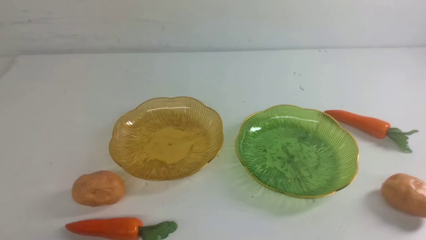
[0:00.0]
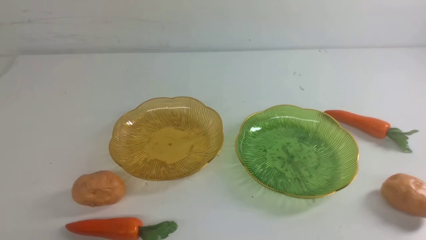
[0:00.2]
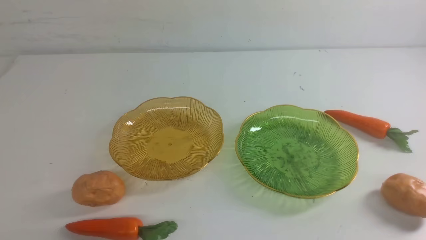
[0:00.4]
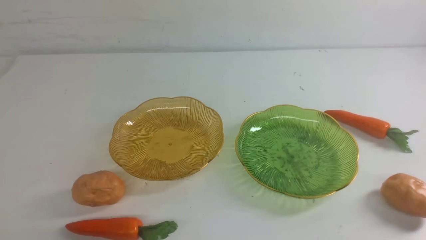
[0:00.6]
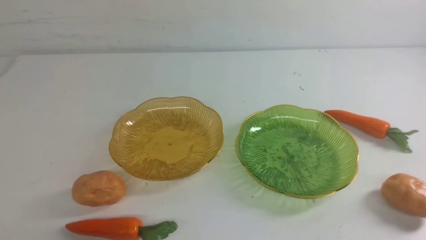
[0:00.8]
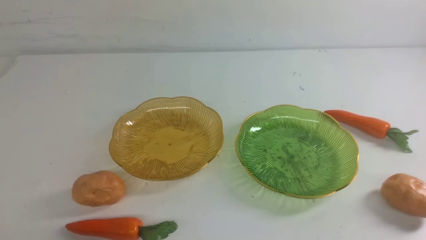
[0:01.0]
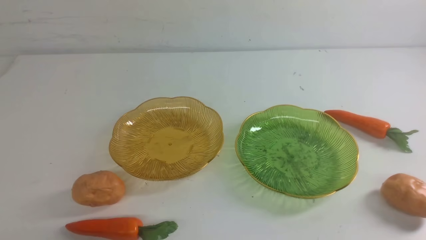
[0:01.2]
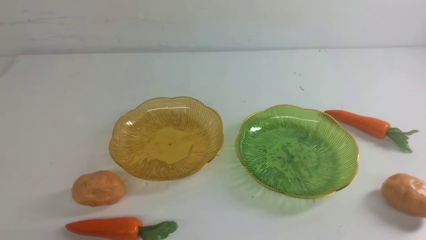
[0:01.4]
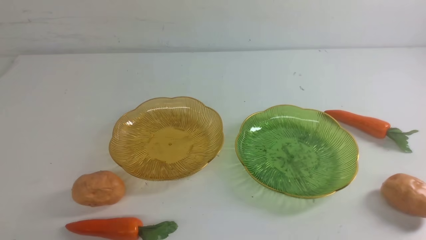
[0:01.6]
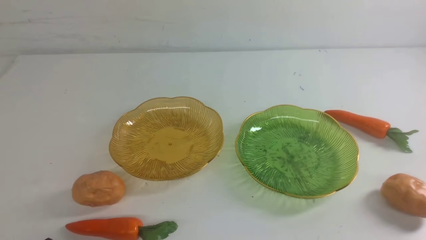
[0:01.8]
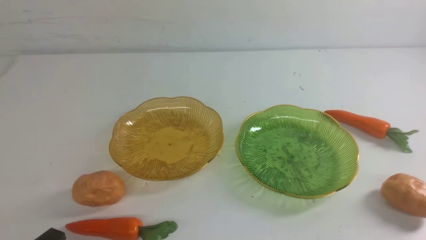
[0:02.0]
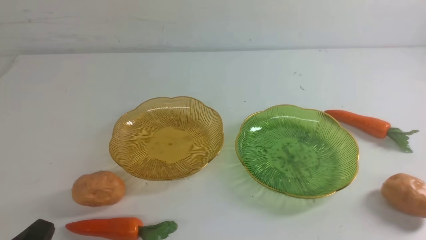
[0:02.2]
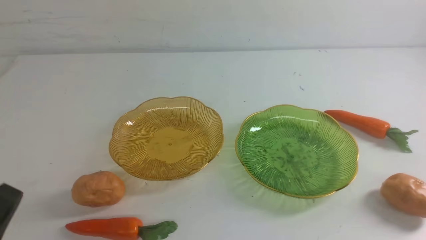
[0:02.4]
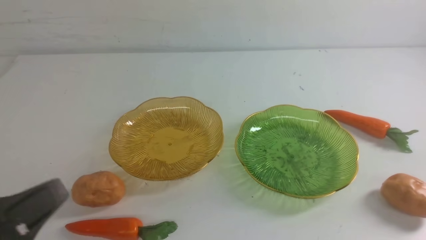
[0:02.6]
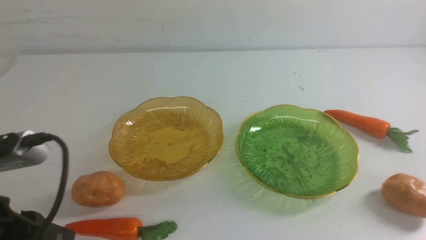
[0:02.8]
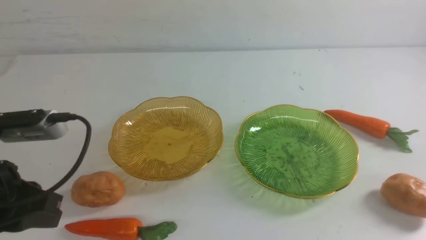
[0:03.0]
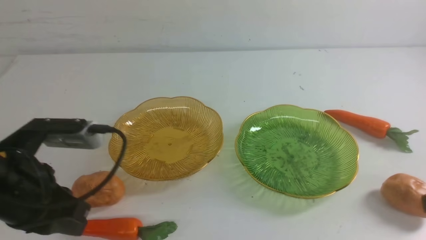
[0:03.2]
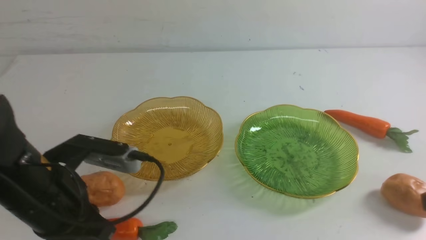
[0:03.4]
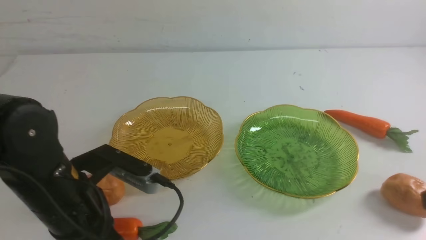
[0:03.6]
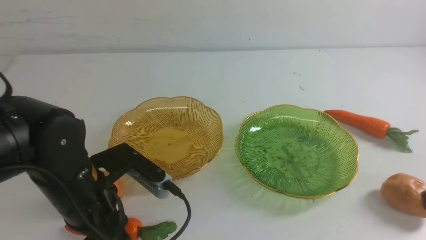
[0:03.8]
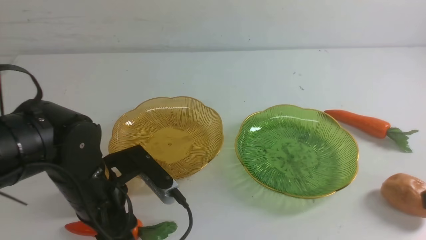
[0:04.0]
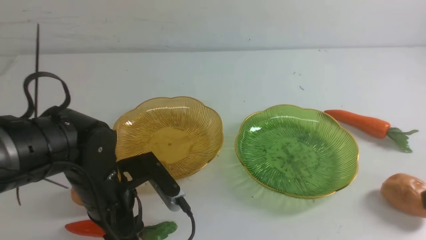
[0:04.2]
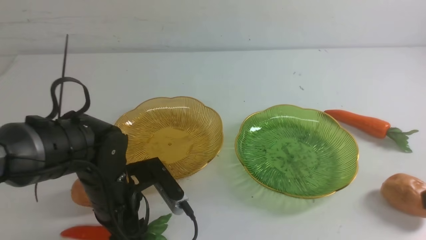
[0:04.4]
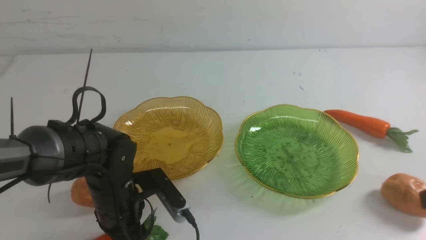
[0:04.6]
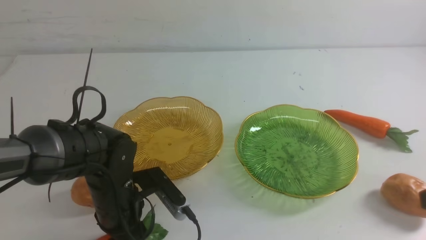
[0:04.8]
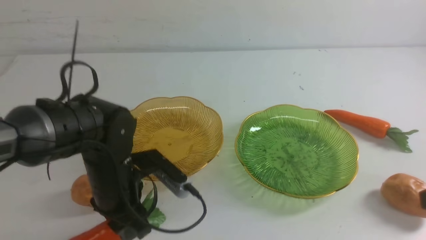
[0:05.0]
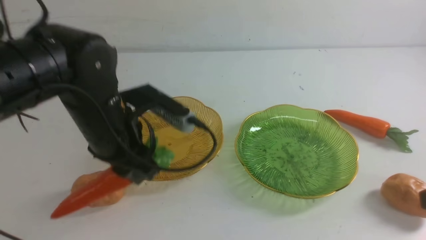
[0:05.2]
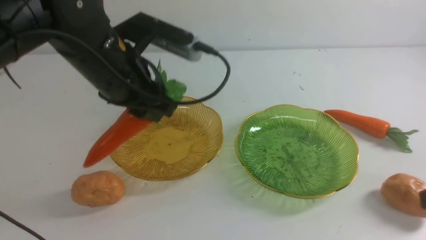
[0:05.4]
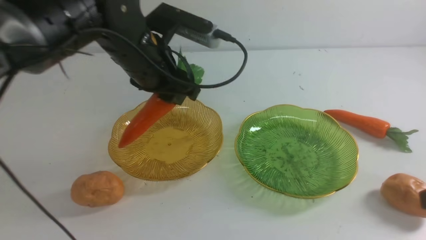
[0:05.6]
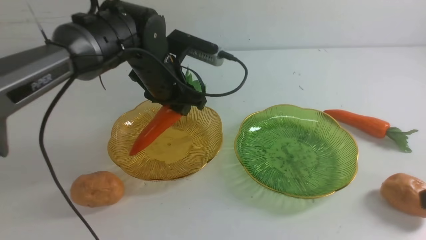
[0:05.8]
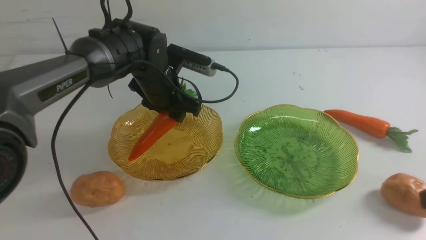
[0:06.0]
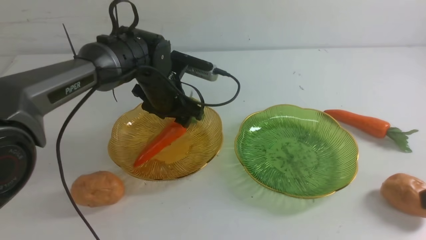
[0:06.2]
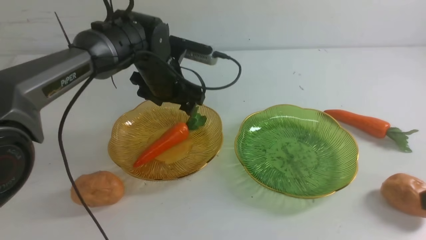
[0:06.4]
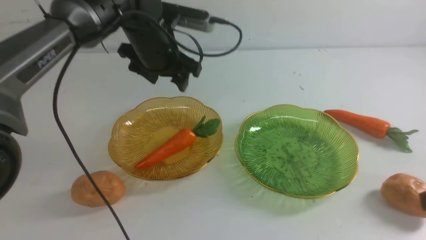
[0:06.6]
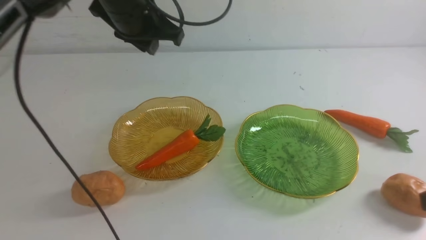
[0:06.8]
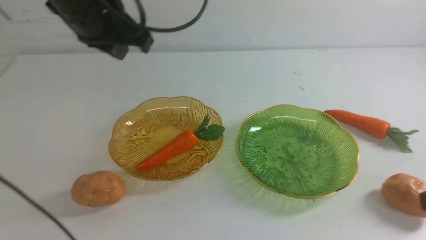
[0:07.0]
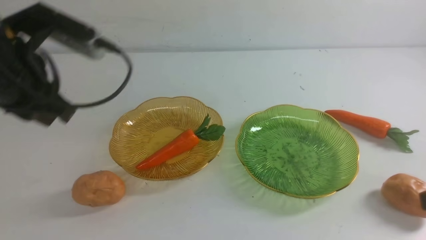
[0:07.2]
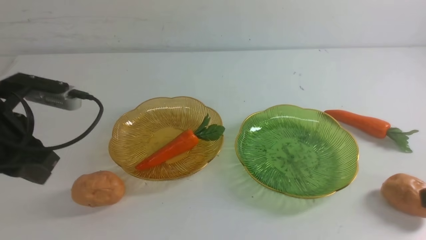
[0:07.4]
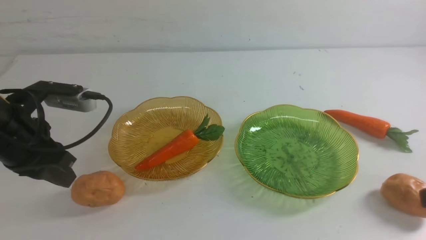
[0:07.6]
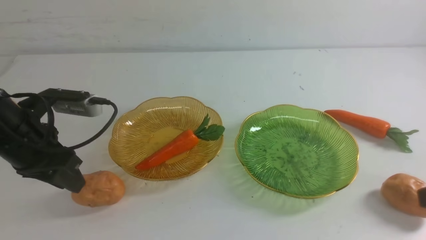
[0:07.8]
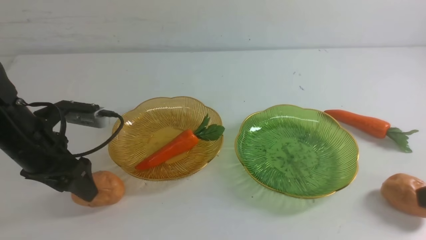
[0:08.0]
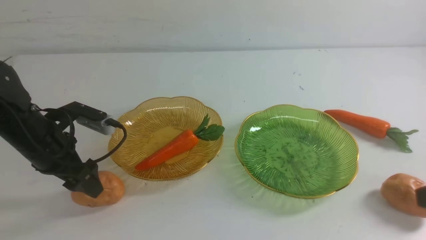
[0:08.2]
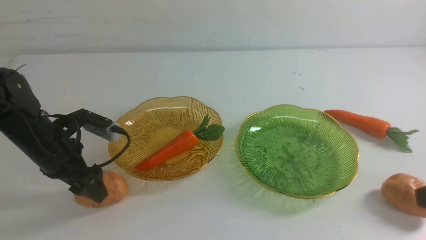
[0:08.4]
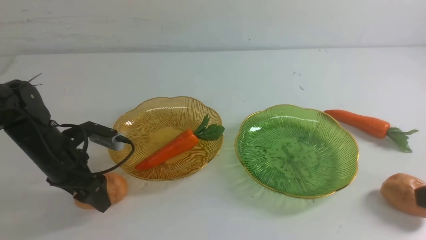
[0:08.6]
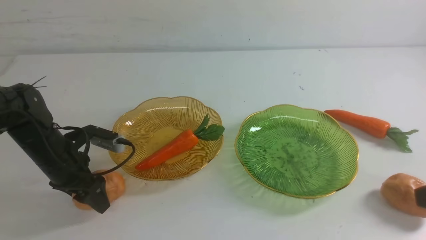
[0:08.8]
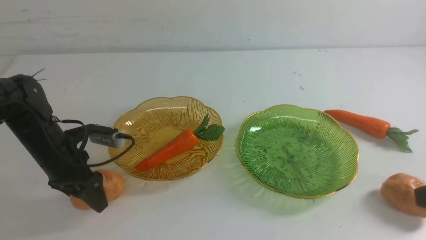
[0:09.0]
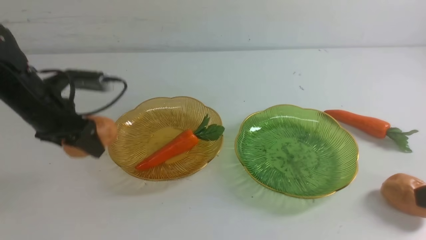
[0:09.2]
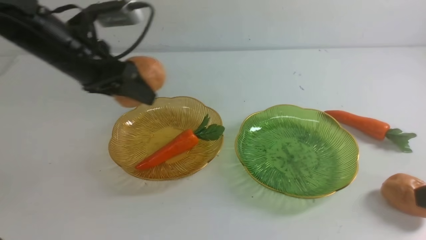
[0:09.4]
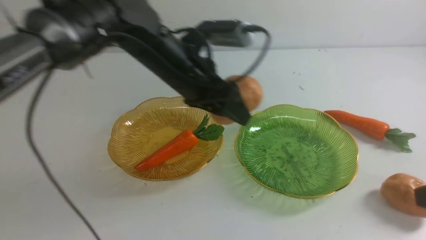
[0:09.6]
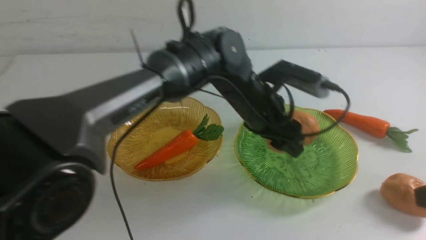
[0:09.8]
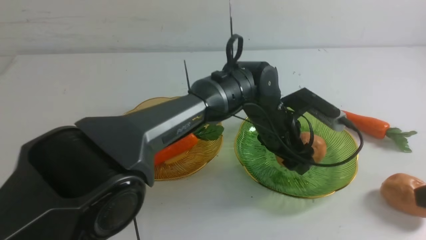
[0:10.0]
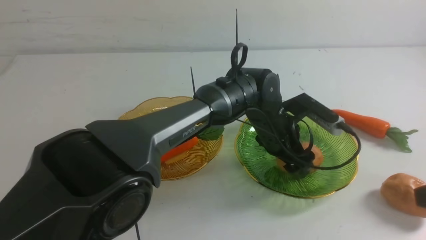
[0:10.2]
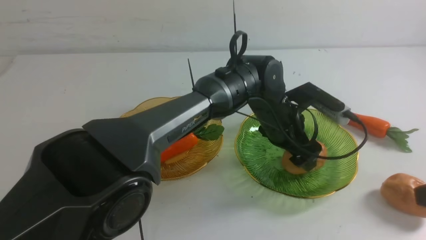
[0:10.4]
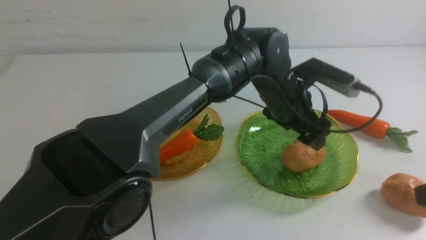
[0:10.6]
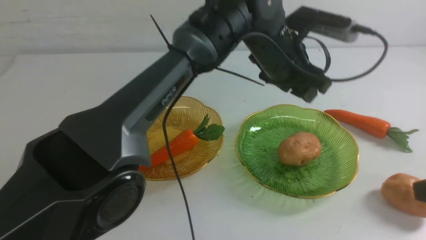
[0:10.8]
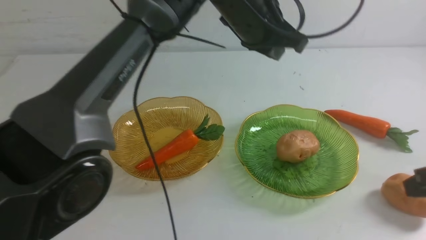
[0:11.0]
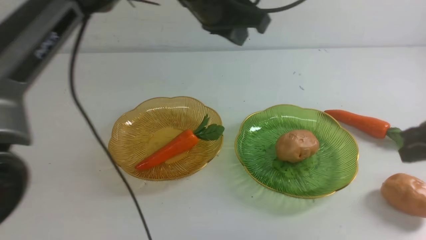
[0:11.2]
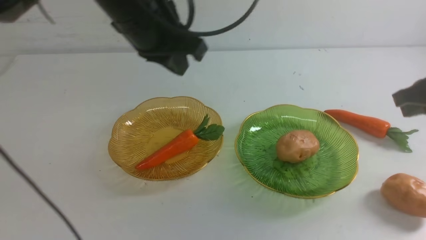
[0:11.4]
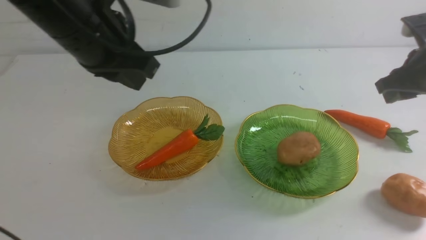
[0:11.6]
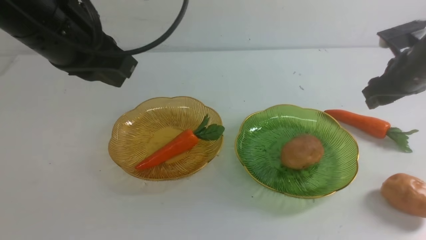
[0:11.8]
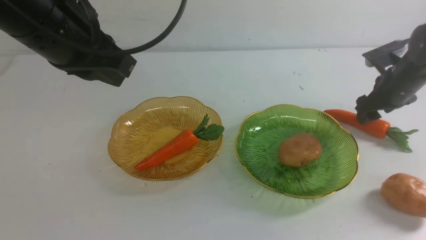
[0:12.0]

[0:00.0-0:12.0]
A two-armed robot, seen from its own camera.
Step, 0:00.0 to 0:06.4: use the left arm to grab a carrot and put it into the left plate.
Step, 0:06.6 to 0:10.6: Grab a potato with your left arm and put it on the right plate.
0:01.6 to 0:03.0: The left gripper goes approximately 15 cm upward and forward.
0:03.0 to 0:04.4: The left gripper heads downward, to the right and forward, covering roughly 15 cm, and opens.
0:04.4 to 0:06.0: The left gripper is displaced forward by about 15 cm.
0:06.0 to 0:07.6: The left gripper shifts about 20 cm to the left and backward, and closes up.
0:07.6 to 0:09.0: The left gripper is displaced forward by some 10 cm, and opens its fingers.
0:09.0 to 0:10.4: The left gripper travels to the right by about 35 cm.
0:10.4 to 0:12.0: The left gripper is displaced to the left, upward and backward by roughly 30 cm, and closes up; the right gripper heads forward and downward, covering roughly 35 cm, and opens up.

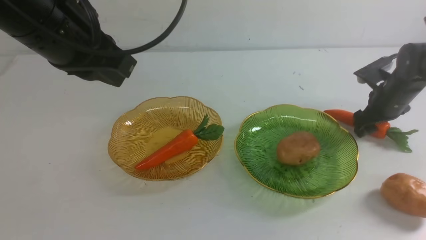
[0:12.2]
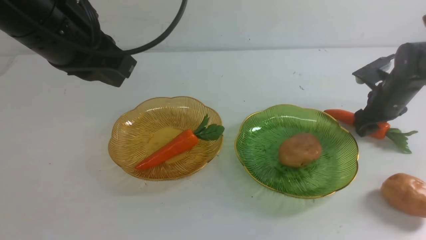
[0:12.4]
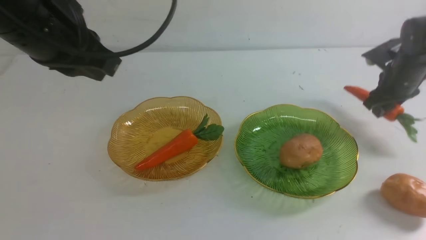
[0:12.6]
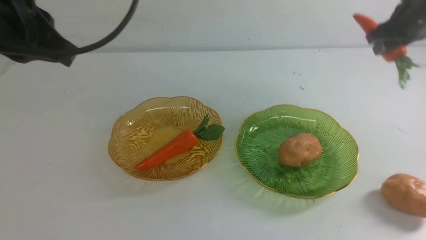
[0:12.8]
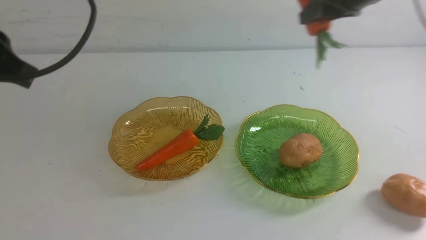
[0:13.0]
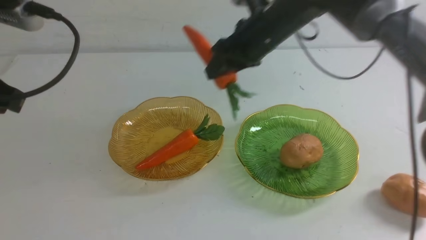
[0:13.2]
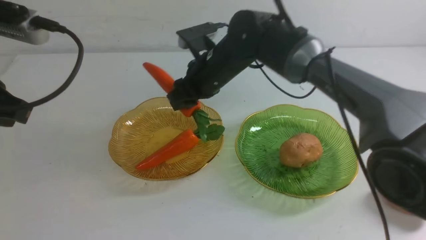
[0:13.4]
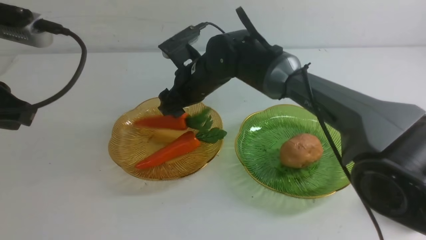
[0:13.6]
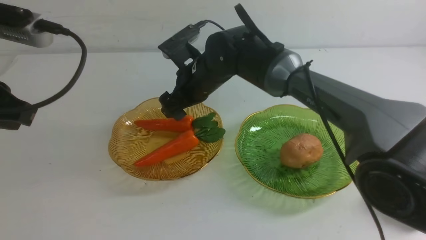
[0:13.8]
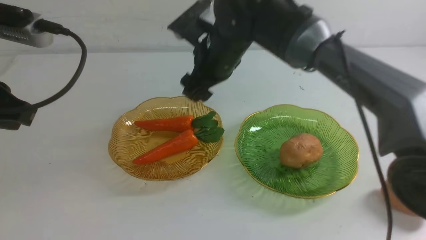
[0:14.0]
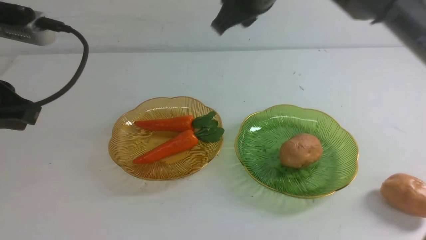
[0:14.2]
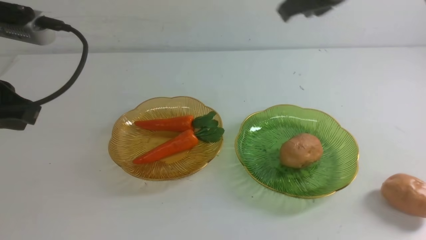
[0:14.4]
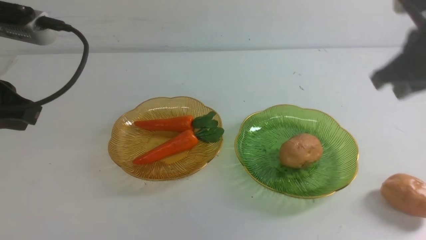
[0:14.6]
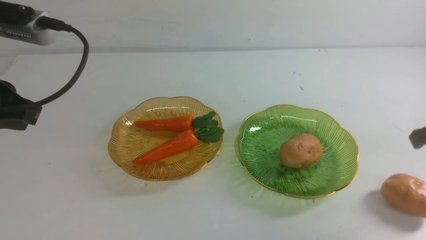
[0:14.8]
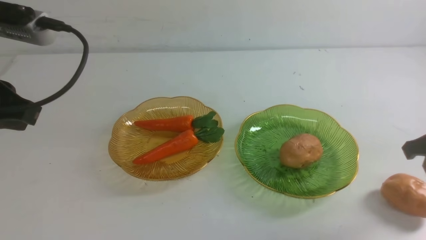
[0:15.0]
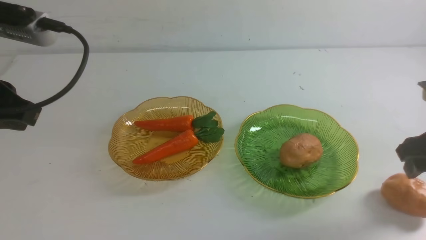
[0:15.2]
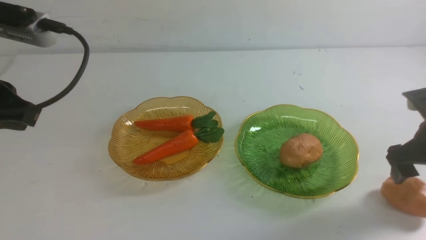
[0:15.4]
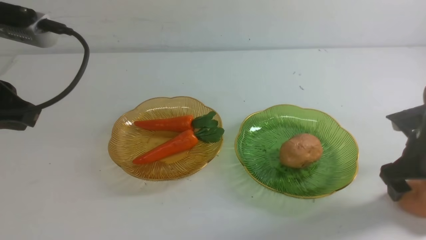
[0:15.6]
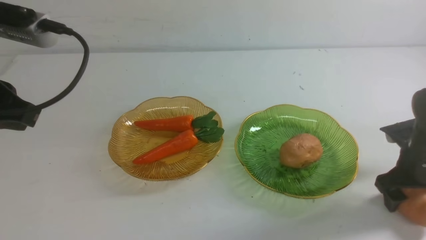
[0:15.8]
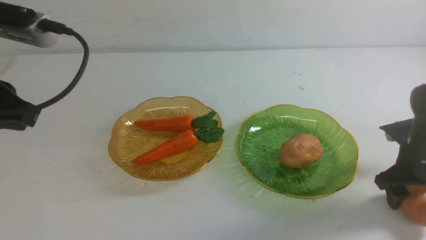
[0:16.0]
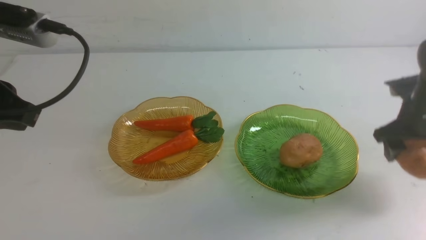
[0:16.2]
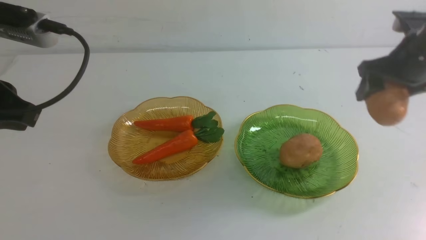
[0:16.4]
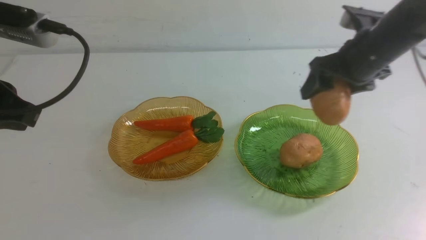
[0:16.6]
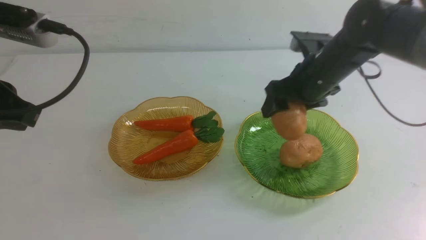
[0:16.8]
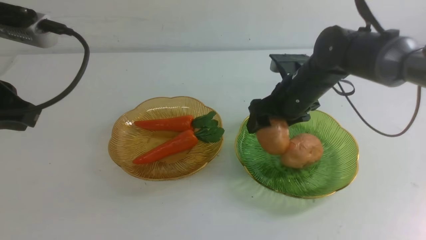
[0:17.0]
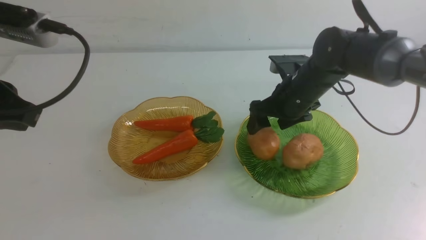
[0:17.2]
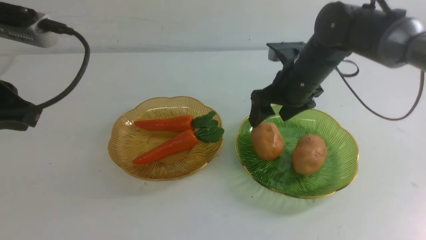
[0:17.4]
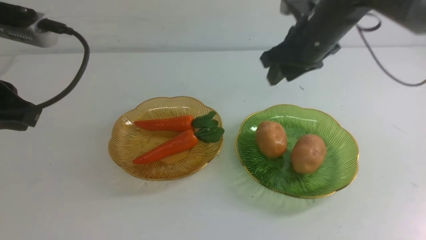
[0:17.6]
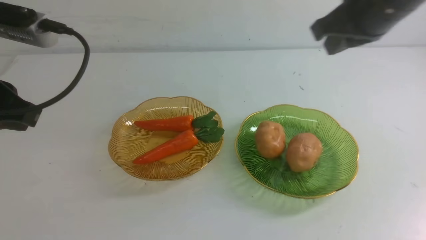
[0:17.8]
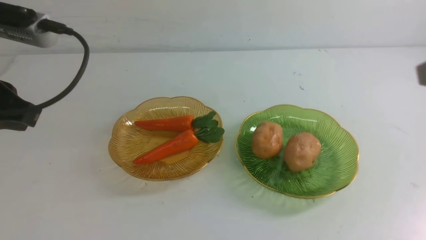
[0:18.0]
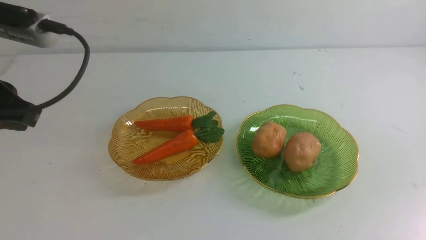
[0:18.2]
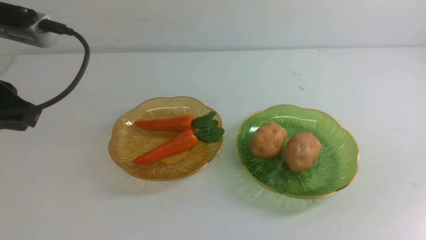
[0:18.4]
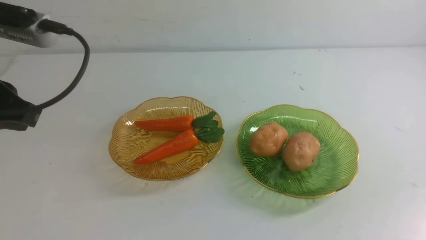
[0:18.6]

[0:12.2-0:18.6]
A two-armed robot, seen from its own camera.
Step, 0:12.2 to 0:13.8: use the right arm to grab a carrot and put it into the left plate.
Step, 0:14.2 to 0:17.4: Grab a potato with your right arm and put it on the right plate.
0:12.2 to 0:13.8: The left gripper goes approximately 10 cm to the left and backward. Meanwhile the right gripper heads to the left, covering roughly 35 cm.
0:13.8 to 0:15.4: The right gripper heads to the right, covering about 35 cm, and closes and opens again.
0:15.4 to 0:17.0: The right gripper moves to the left and forward, about 20 cm.
0:17.0 to 0:18.6: The right gripper travels backward and to the right by approximately 40 cm, and closes its fingers.
